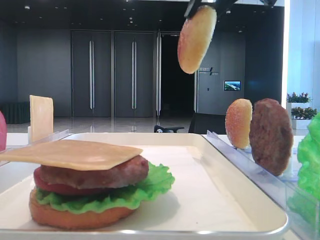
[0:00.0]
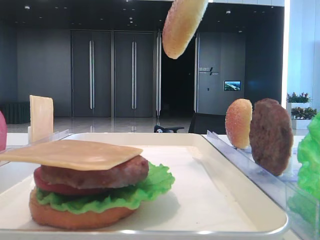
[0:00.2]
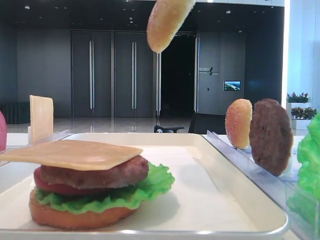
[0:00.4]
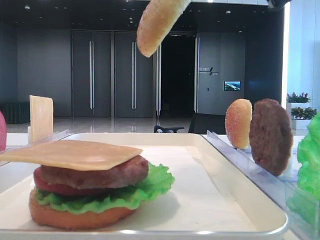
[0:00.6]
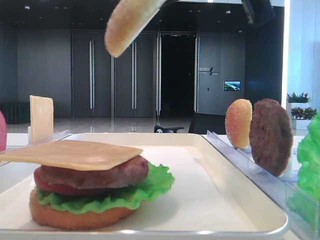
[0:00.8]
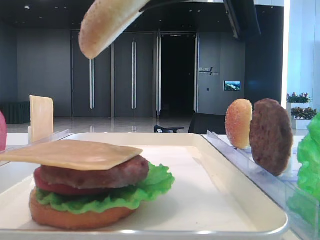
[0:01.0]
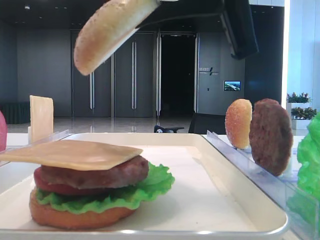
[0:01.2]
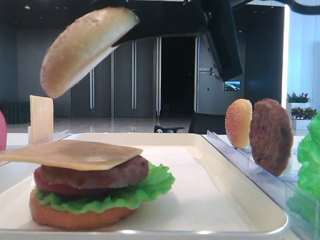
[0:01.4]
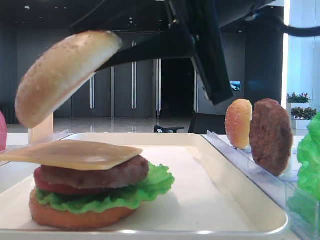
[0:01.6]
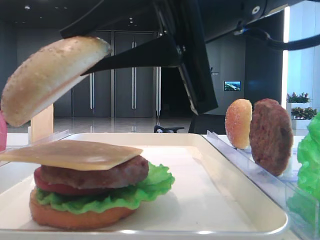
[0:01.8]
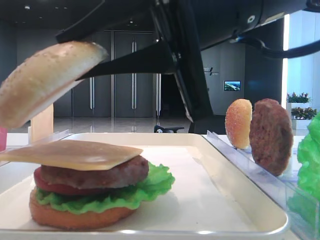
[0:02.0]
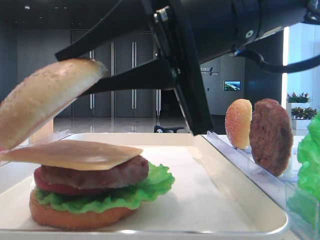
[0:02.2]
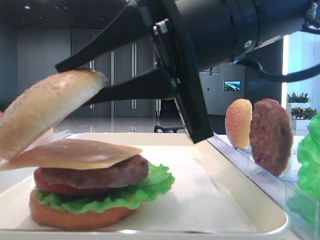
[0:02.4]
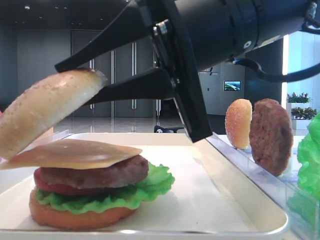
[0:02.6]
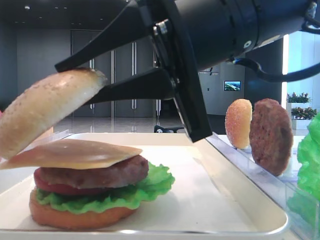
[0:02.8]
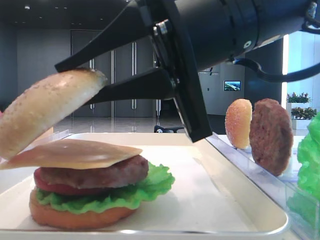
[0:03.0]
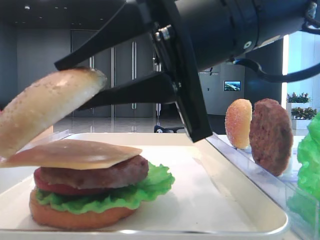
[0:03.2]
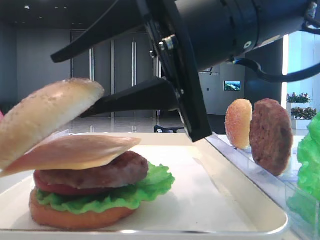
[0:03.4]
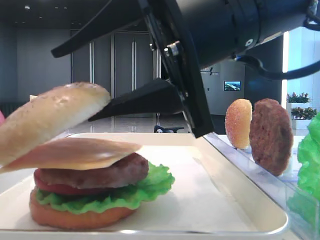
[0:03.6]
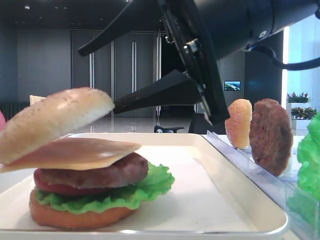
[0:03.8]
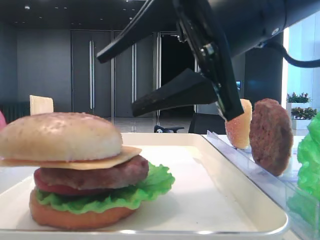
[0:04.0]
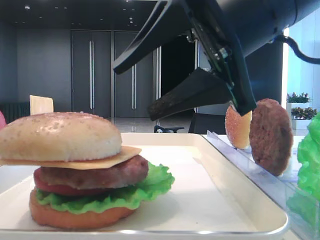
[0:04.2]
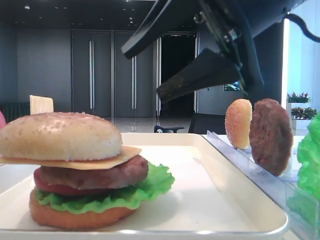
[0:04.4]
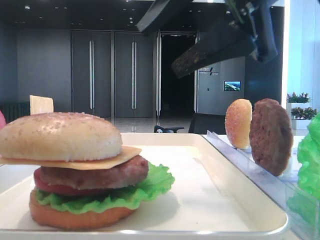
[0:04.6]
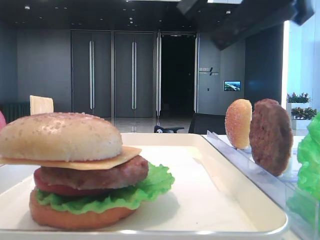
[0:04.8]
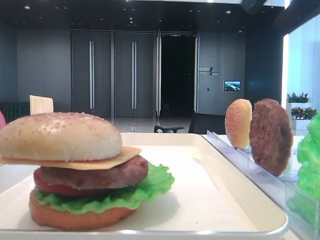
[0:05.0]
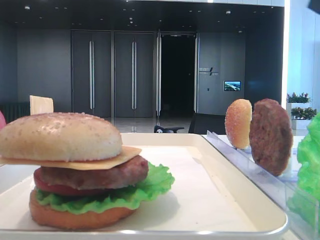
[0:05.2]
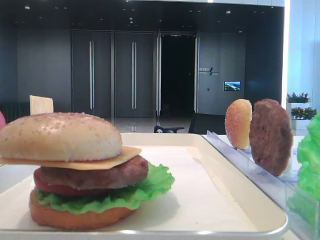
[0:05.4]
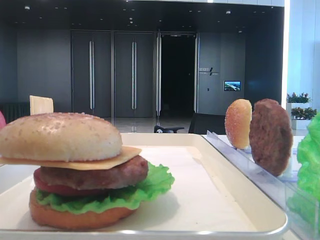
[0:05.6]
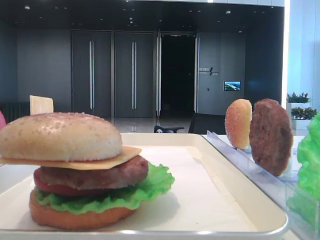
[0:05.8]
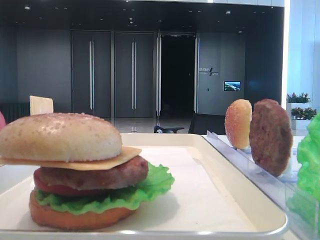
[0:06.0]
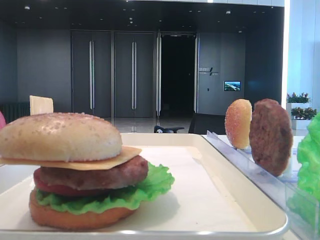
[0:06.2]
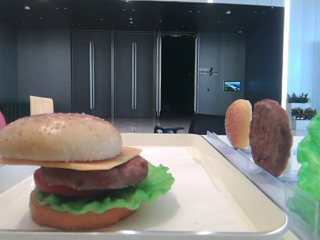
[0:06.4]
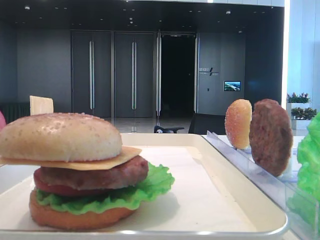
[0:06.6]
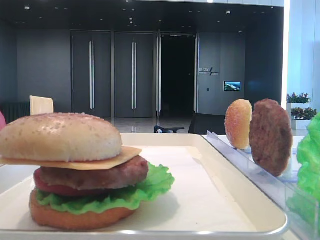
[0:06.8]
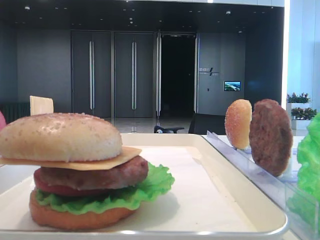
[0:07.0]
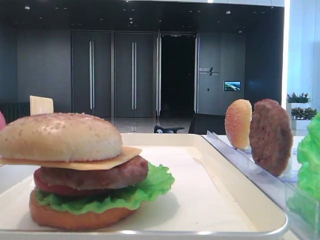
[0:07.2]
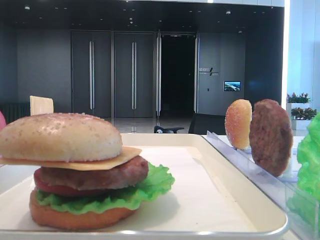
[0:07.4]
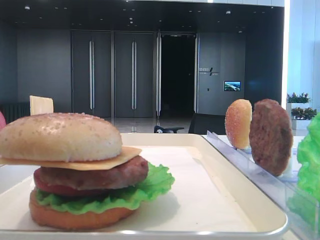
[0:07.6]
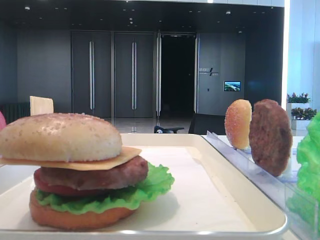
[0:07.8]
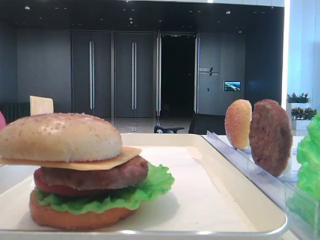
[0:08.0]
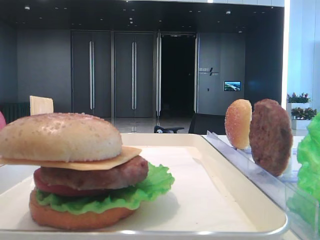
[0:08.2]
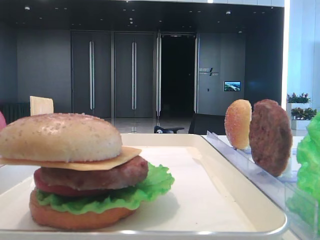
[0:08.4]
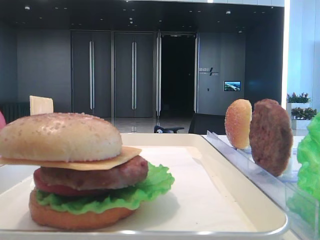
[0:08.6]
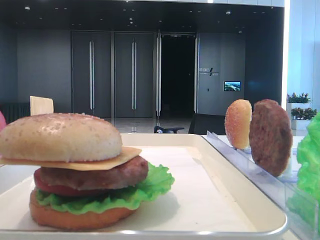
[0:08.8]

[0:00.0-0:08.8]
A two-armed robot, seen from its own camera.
Step, 0:00.0 to 0:03.8: Place the top bread slice on the cheese with the right hand.
0:00.0 to 0:01.4: The right gripper travels backward and downward by approximately 15 cm.
0:01.4 to 0:03.0: The right gripper travels downward by approximately 5 cm.
0:03.0 to 0:04.4: The right gripper changes place by some 5 cm, and opens up.
0:04.4 to 0:05.8: The right gripper shifts some 25 cm to the right, backward and upward.
0:07.4 to 0:08.8: Both grippers stay about where they are.

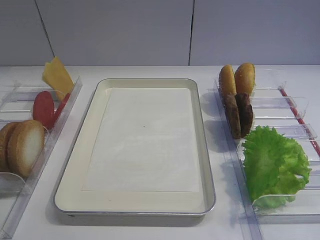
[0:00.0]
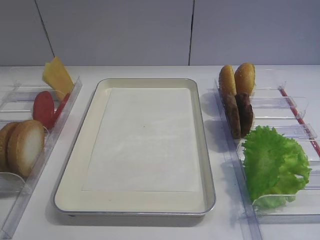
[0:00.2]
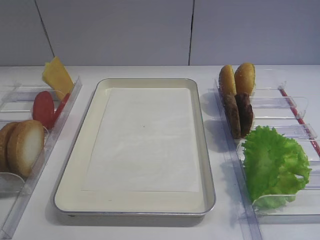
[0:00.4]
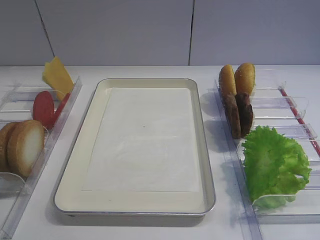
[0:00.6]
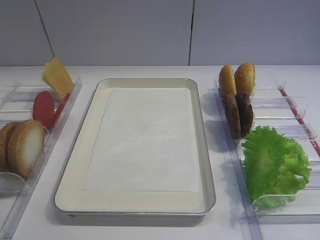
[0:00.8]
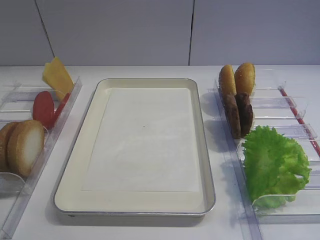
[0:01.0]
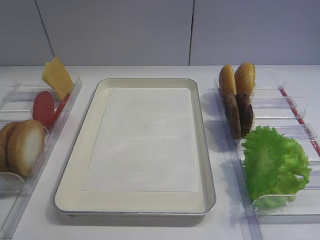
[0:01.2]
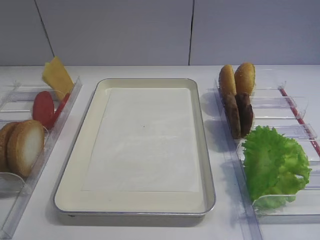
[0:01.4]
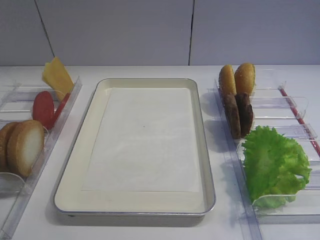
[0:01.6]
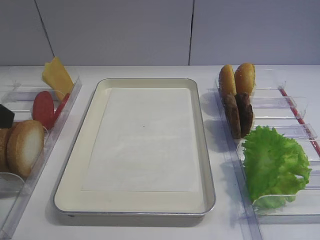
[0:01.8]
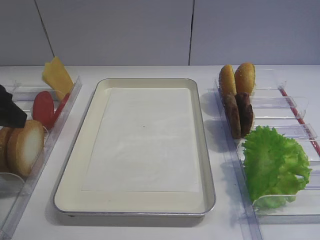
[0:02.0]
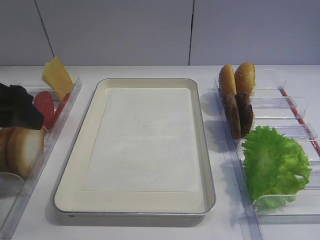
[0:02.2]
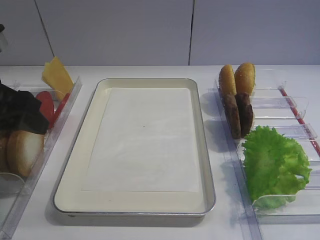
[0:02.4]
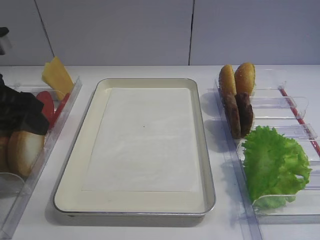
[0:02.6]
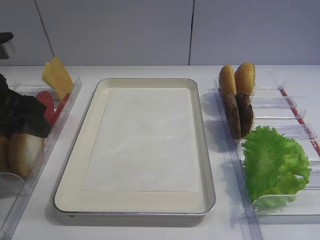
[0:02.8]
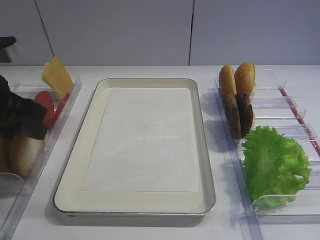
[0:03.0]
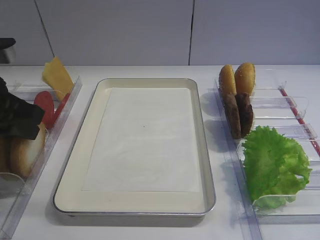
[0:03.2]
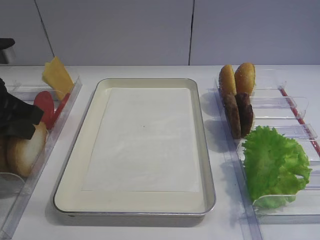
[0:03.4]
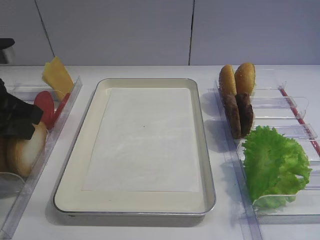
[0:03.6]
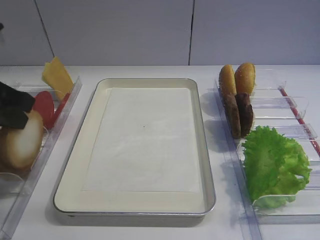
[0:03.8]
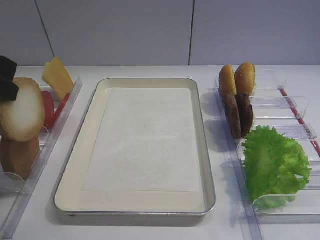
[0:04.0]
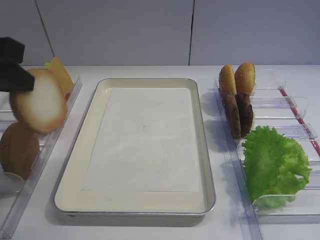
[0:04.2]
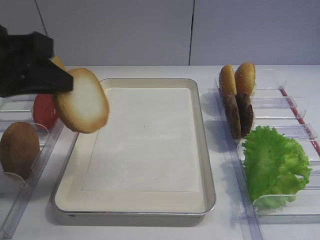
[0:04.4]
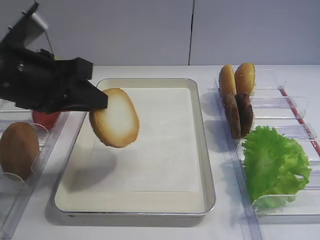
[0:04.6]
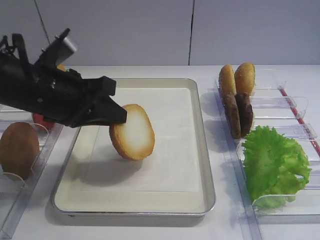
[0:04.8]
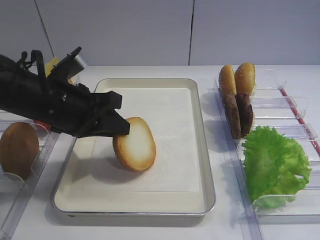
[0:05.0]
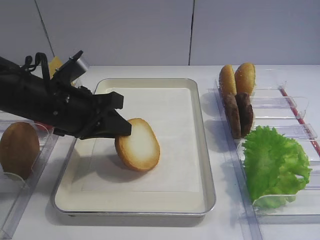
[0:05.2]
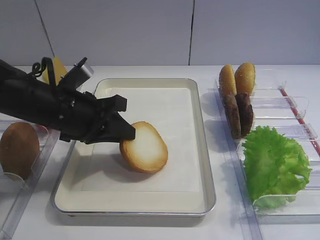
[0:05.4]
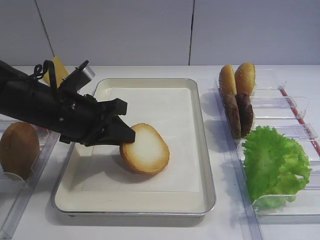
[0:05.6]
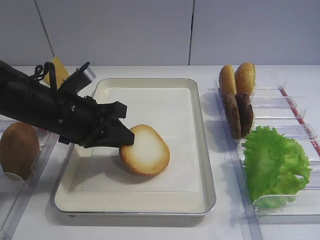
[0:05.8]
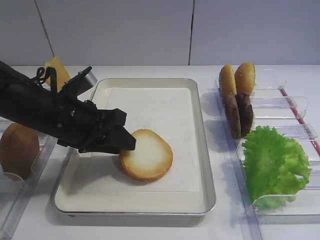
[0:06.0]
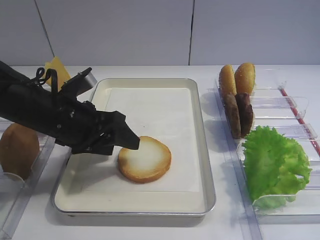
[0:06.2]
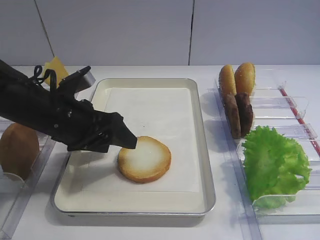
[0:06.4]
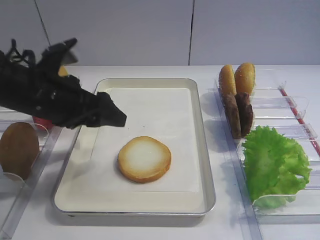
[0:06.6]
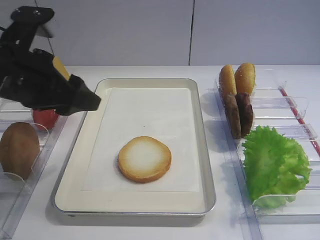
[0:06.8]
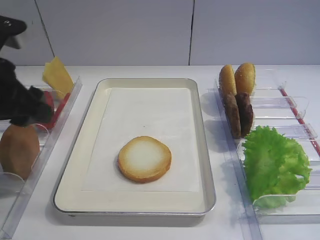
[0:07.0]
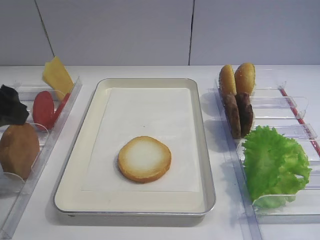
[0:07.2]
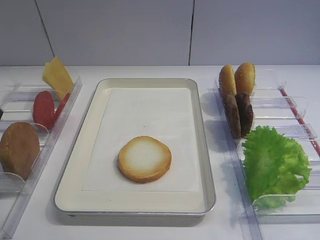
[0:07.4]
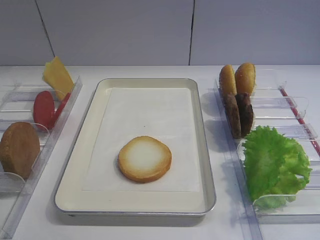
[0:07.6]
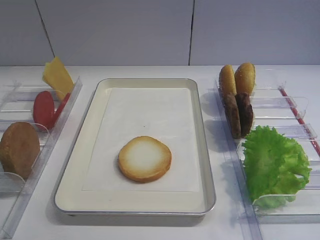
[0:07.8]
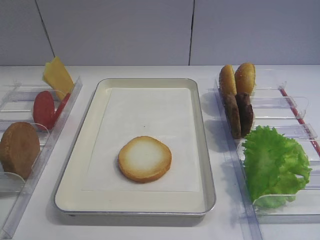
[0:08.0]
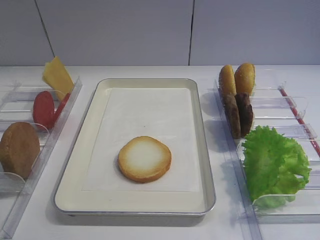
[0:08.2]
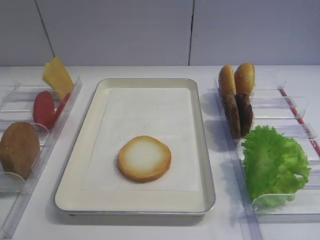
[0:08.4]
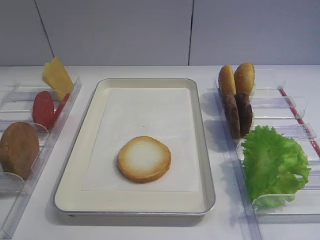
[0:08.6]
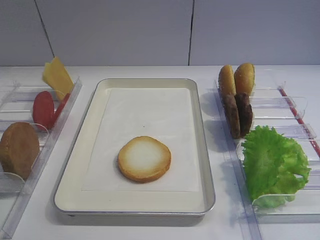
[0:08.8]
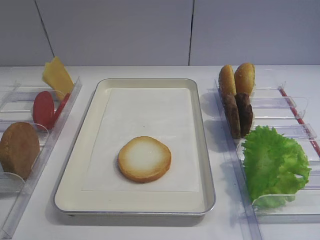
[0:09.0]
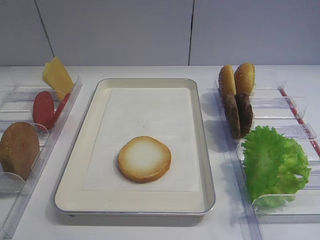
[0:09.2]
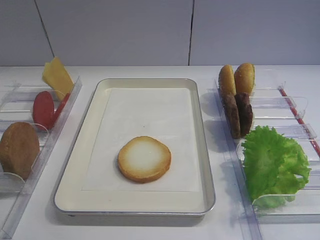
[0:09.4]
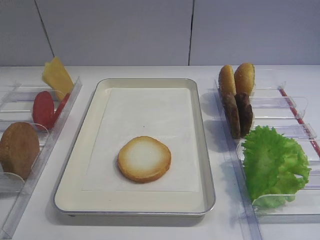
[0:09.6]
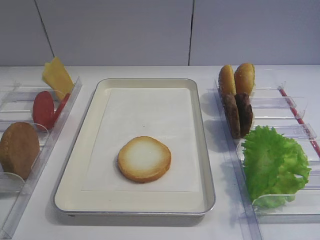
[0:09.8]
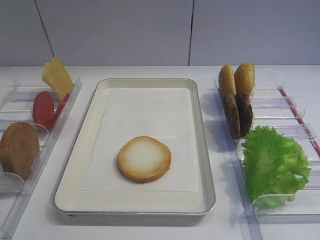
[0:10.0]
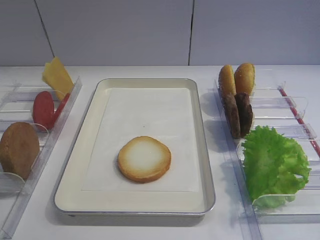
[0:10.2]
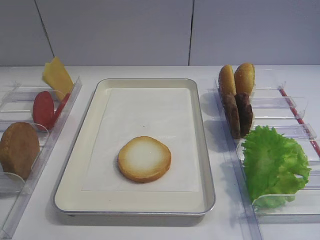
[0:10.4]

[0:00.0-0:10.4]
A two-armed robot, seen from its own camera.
Step, 0:00.0 to 0:04.0: Pick up the bread slice with the left gripper.
Step, 0:04.2 to 0:06.4: Place the bread slice on the tray with the left gripper.
0:01.4 to 0:03.0: The left gripper heads forward, covering some 15 cm.
0:03.0 to 0:04.4: The left gripper goes approximately 5 cm upward, and closes its fingers.
0:04.4 to 0:06.0: The left gripper is displaced downward, to the right and forward by about 15 cm.
0:06.0 to 0:07.4: The left gripper goes some 20 cm upward, to the left and backward, and opens its fingers.
0:09.0 to 0:10.4: Neither gripper changes place.

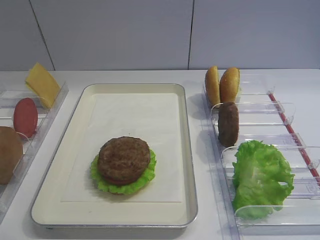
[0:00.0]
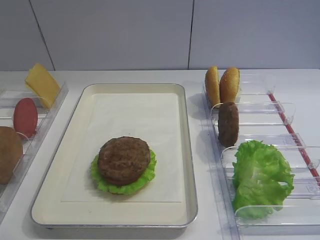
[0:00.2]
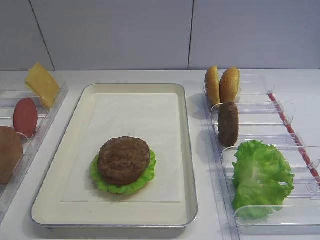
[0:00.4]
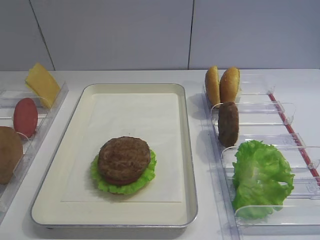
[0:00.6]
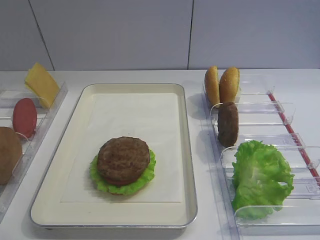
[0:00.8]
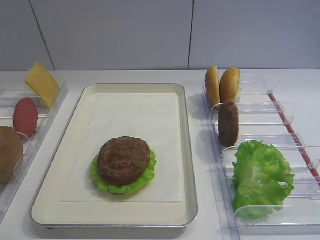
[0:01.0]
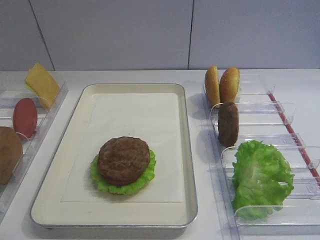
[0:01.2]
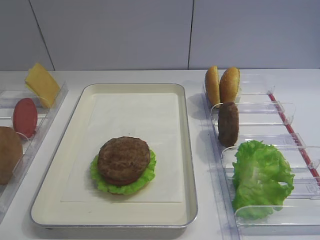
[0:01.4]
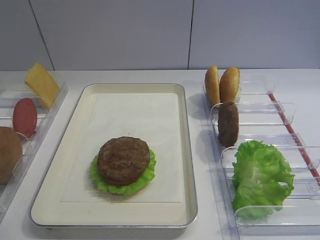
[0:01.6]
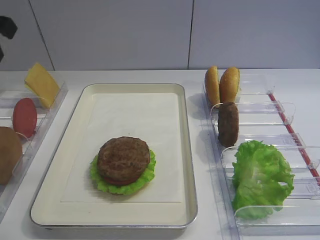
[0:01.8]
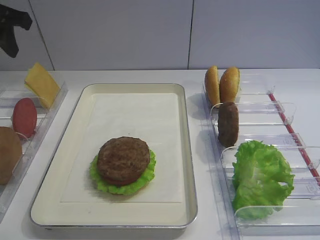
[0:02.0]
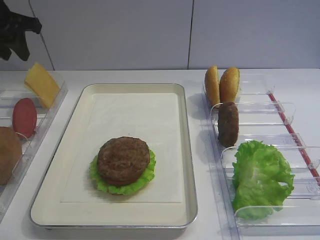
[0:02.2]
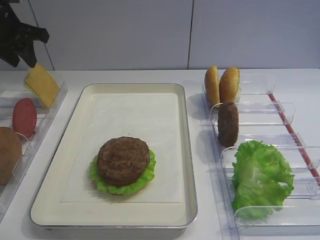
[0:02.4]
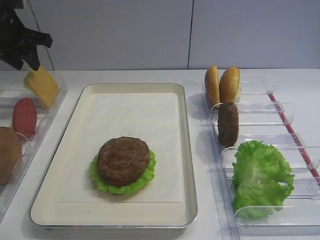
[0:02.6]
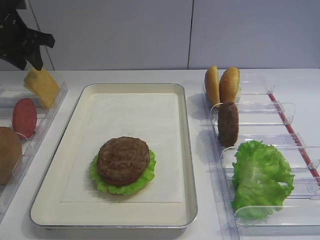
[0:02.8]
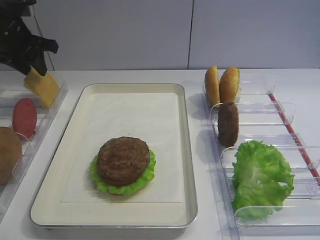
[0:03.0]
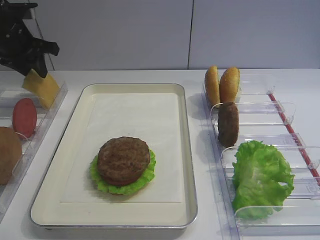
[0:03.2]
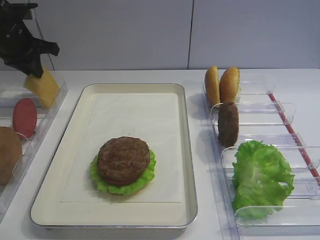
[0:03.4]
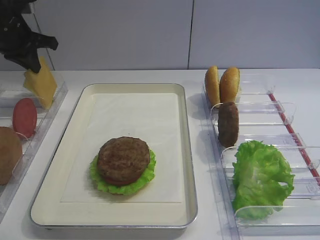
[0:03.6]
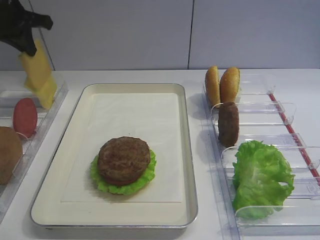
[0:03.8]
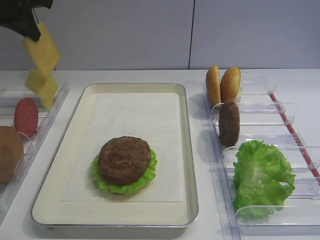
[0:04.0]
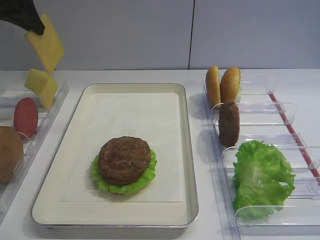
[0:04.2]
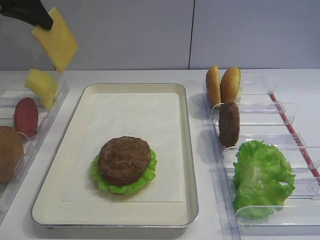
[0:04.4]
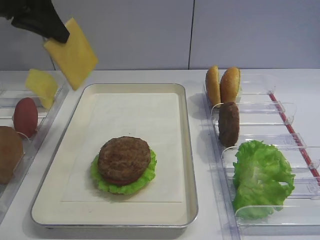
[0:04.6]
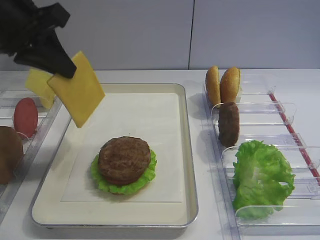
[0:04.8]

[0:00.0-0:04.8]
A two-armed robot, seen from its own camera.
Step, 0:00.0 to 0:04.0: Pick up the cheese slice with the left gripper.
0:01.6 to 0:03.2: The left gripper shifts about 25 cm forward and downward.
0:03.2 to 0:04.8: The left gripper heads backward, to the right and upward, covering approximately 20 cm, and closes.
